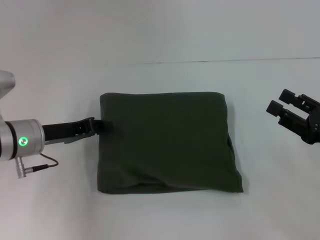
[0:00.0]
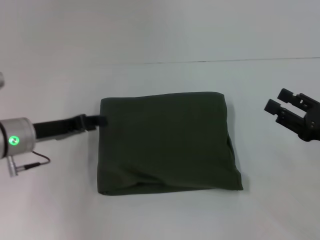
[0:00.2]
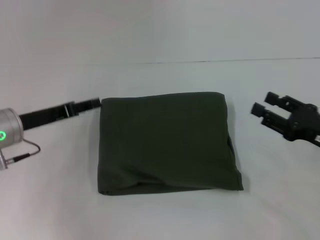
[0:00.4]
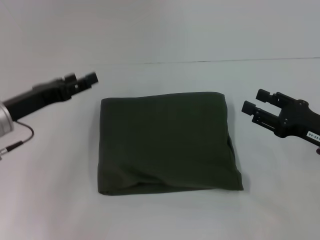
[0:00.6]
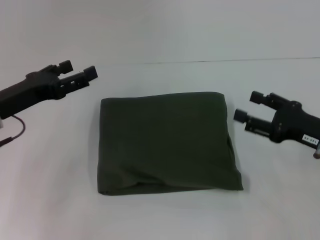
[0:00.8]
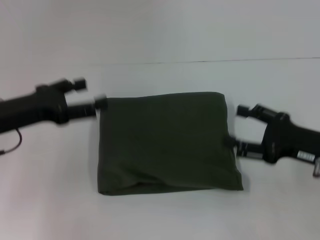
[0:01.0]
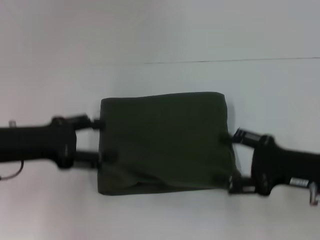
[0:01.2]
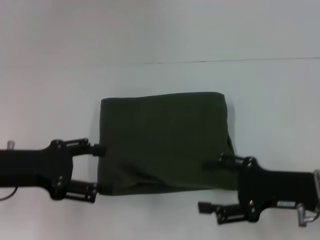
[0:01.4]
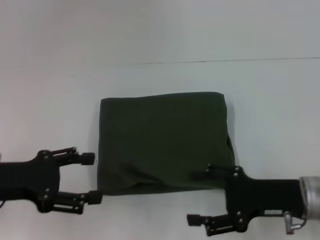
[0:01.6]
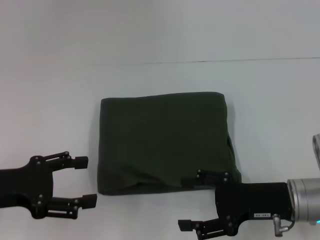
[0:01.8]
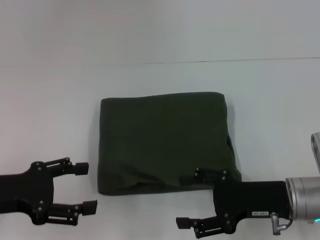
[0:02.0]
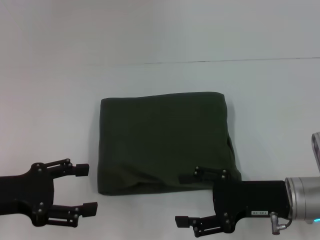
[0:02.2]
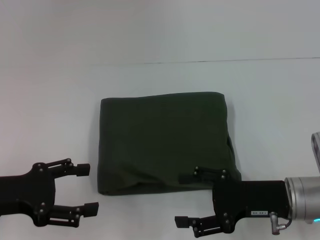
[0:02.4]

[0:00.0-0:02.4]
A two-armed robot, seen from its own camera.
0:00.0 to 0:01.2: The right gripper heads to the left, covering some 5 cm. Meanwhile the left gripper moves upward and backward, about 10 cm, and opens up.
0:01.2 to 0:02.4: The right gripper changes place by approximately 5 cm. Meanwhile the left gripper shifts roughly 5 cm backward.
